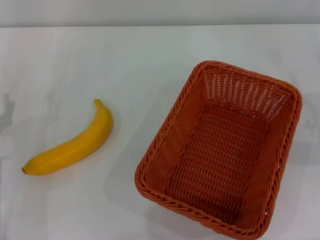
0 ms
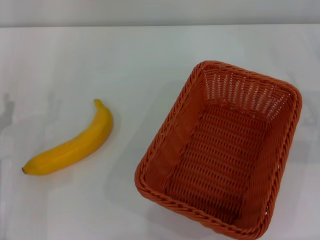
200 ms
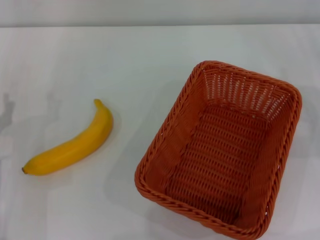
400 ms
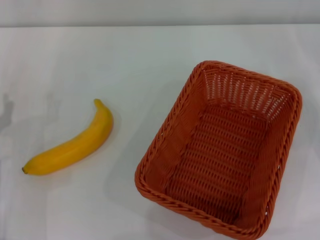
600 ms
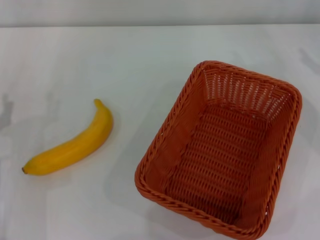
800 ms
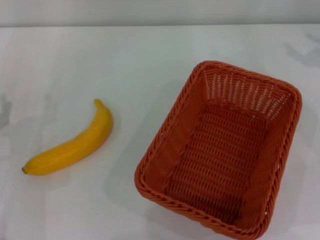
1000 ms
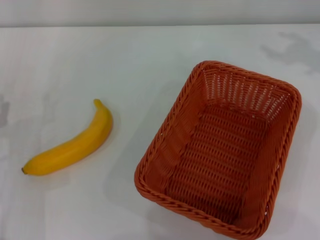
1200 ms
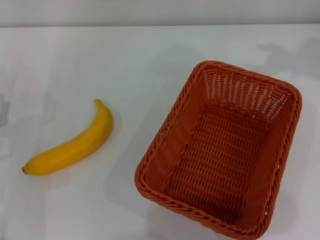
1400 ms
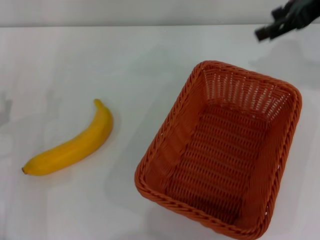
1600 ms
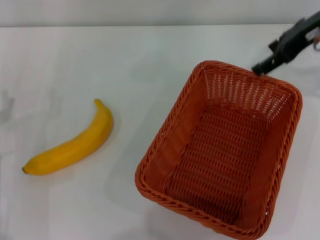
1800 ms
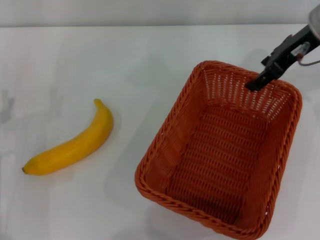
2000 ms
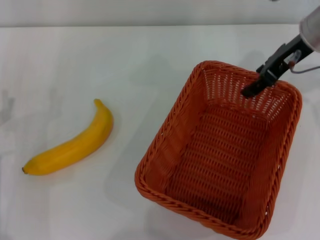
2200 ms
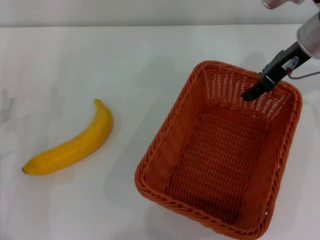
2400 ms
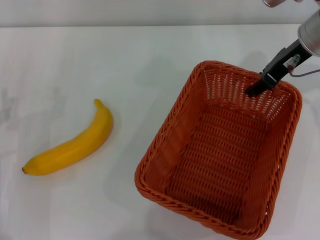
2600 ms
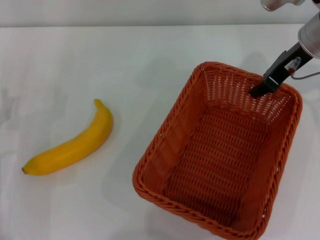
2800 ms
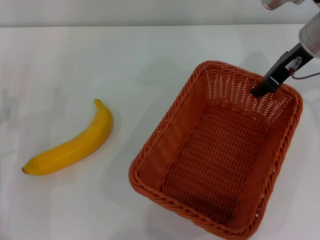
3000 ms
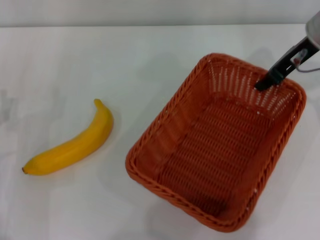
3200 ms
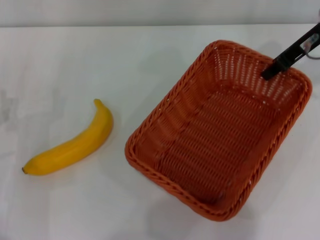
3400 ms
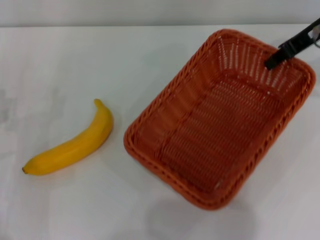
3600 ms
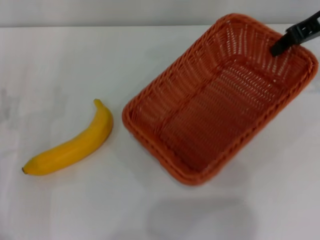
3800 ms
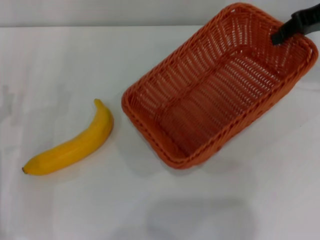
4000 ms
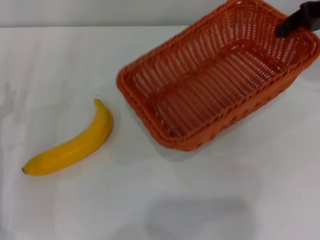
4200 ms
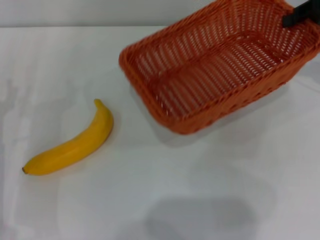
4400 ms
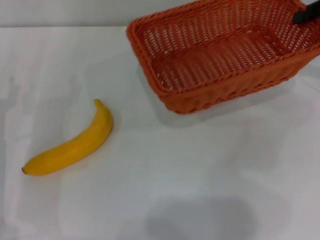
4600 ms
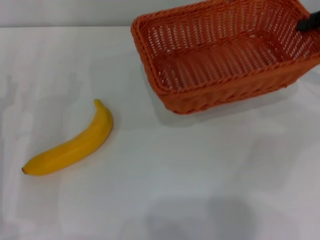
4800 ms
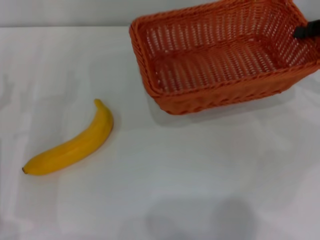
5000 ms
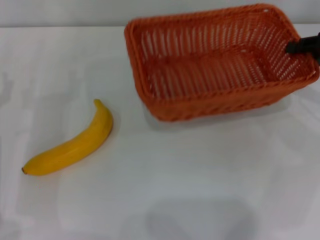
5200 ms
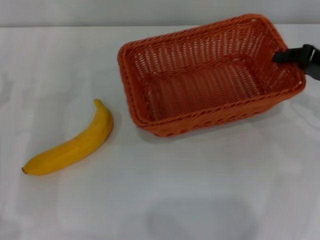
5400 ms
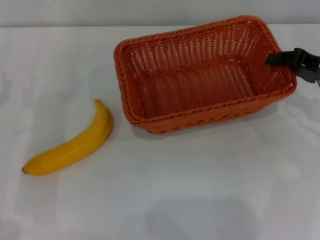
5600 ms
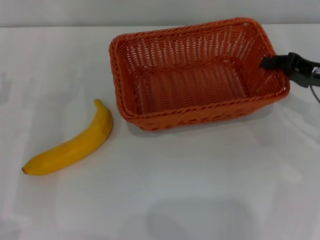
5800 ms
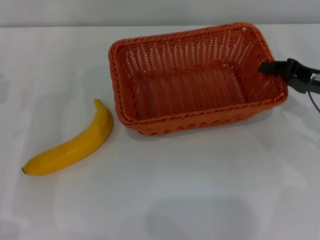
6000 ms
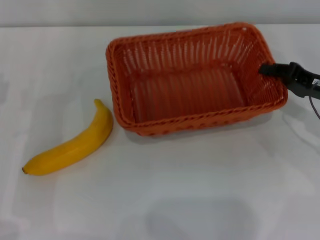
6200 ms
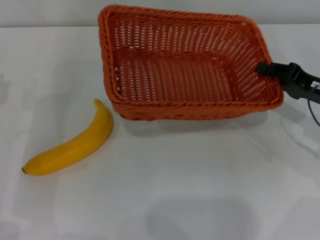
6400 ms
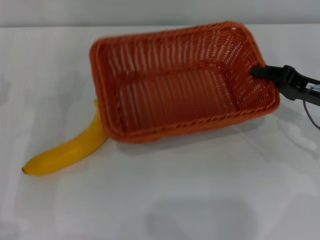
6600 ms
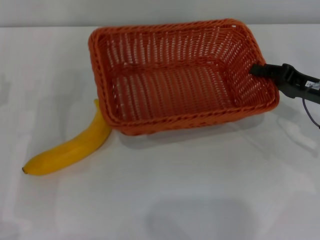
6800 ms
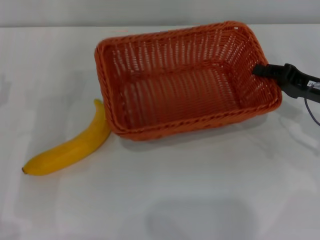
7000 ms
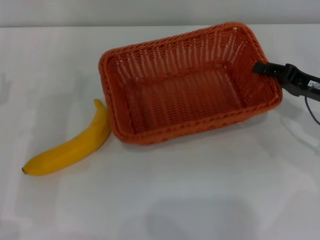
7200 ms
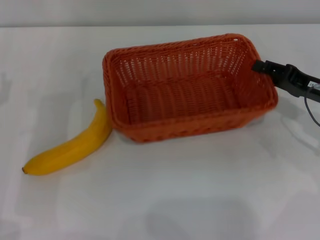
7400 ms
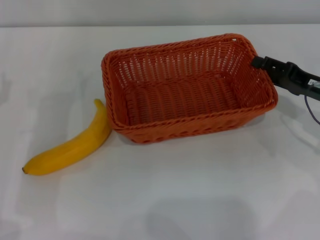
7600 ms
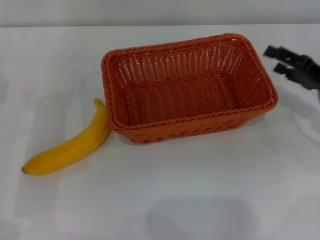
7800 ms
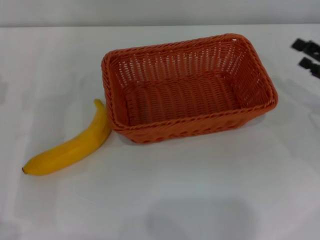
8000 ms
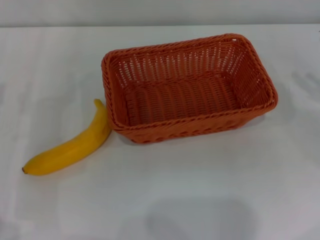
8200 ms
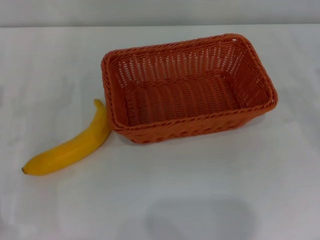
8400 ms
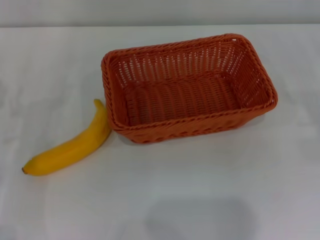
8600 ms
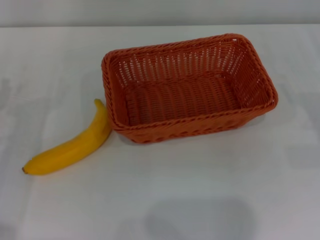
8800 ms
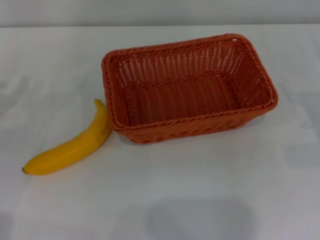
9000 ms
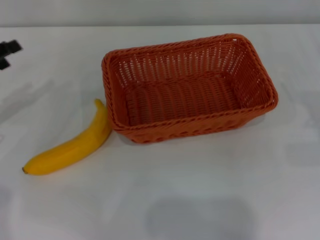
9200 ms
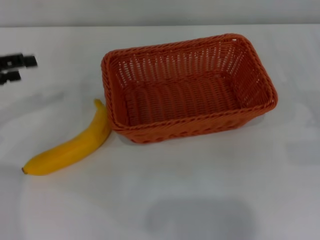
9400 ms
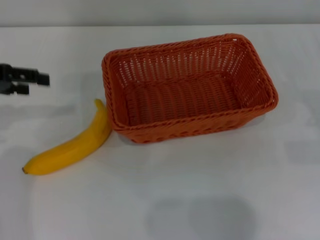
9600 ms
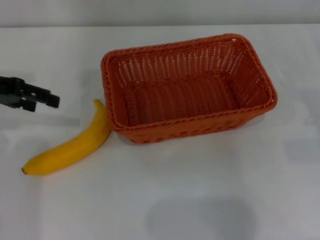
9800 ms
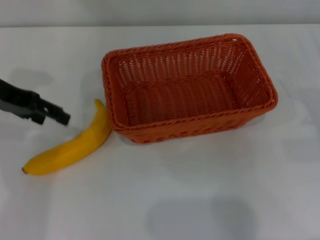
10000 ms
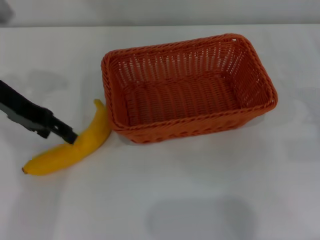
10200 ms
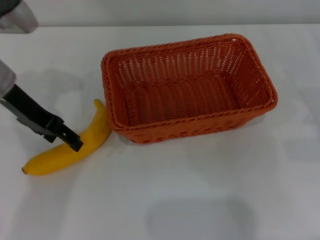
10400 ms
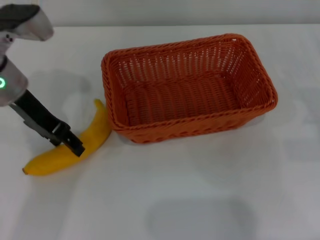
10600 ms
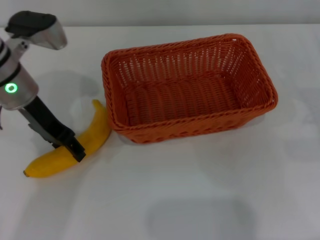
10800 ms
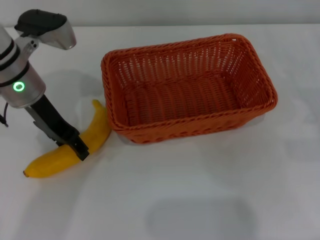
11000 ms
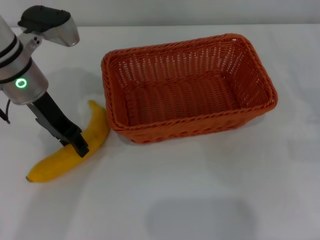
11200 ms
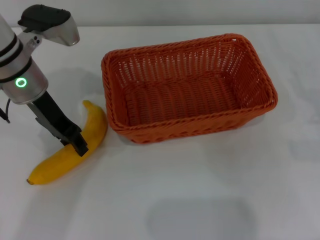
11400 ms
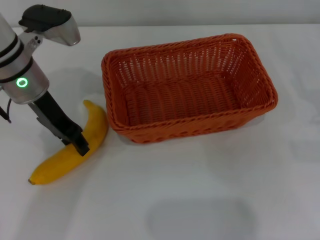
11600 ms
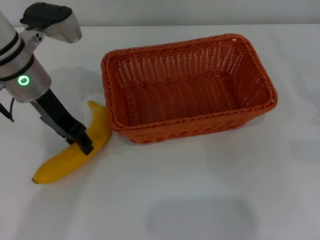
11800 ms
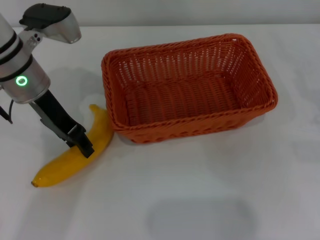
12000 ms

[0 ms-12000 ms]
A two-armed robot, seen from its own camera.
Step, 0 ms to 3600 ms: Pick up the light basket with the right gripper.
Step, 3800 ms to 7600 ms: Place the light basket in the center of view with the right gripper.
0 ms to 1600 ms: The right gripper moves upward, forward and to the left, approximately 30 cm.
1600 ms to 3000 ms: The right gripper goes approximately 10 cm downward and to the left, and closes up.
3000 ms to 4400 ms: The right gripper is displaced to the right by some 10 cm.
4400 ms to 6000 ms: The right gripper moves downward and backward, approximately 15 cm.
6000 ms to 7600 ms: The right gripper opens its fingers.
7600 ms to 9000 ms: The right gripper moves to the right and backward, some 10 cm, and opens its fingers.
9000 ms to 10400 ms: The left gripper goes roughly 20 cm to the right, upward and forward.
10400 ms to 12000 ms: The left gripper closes.

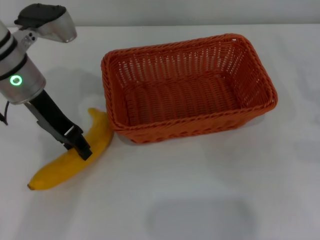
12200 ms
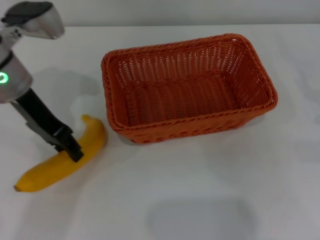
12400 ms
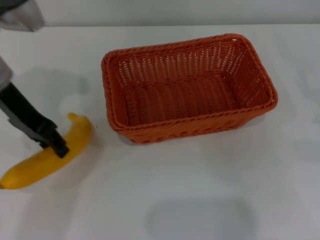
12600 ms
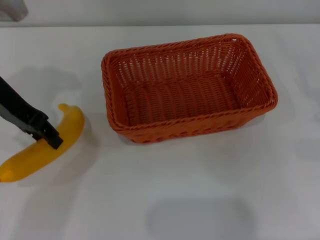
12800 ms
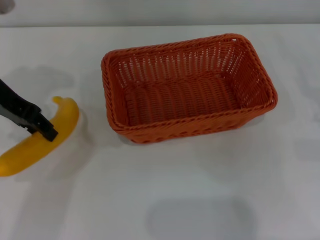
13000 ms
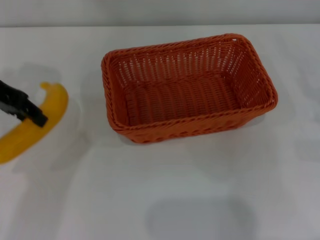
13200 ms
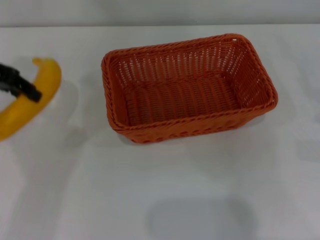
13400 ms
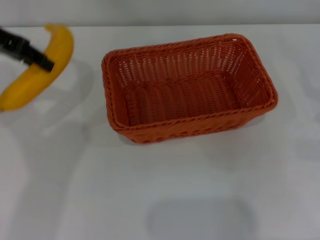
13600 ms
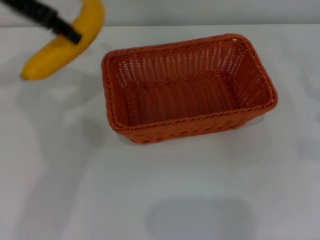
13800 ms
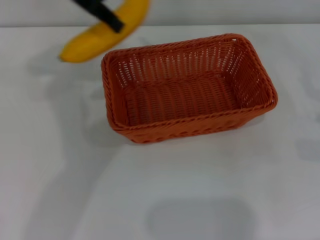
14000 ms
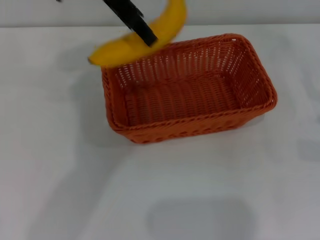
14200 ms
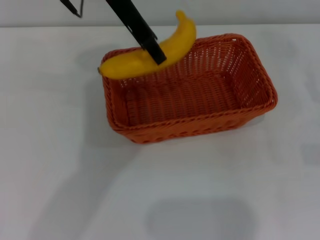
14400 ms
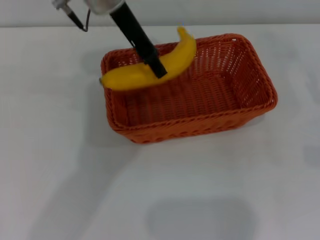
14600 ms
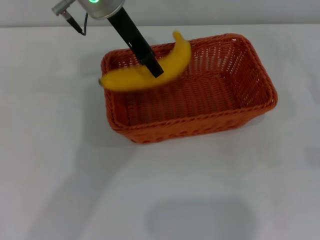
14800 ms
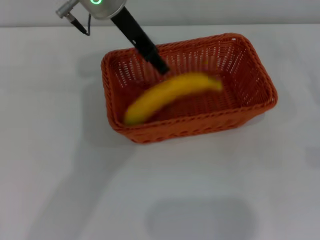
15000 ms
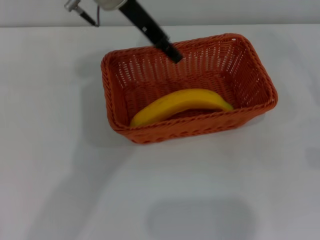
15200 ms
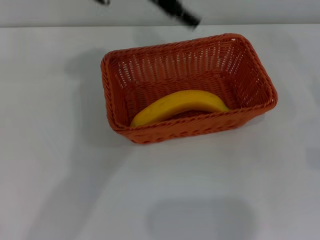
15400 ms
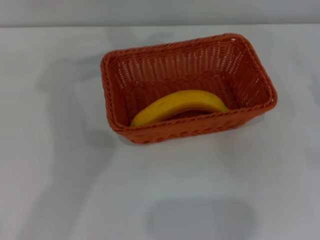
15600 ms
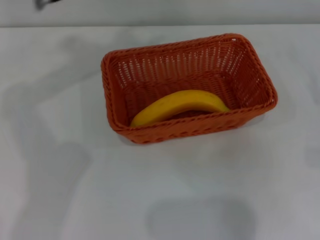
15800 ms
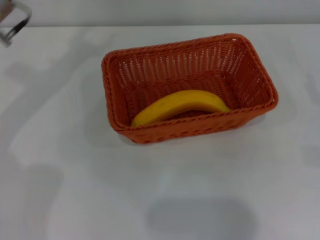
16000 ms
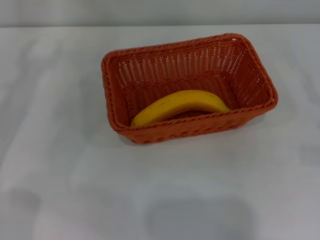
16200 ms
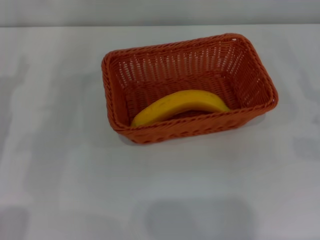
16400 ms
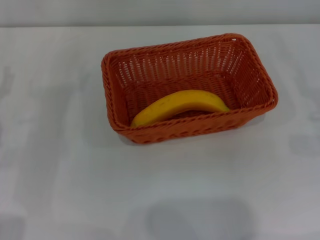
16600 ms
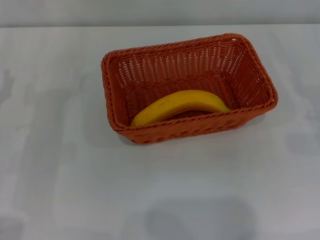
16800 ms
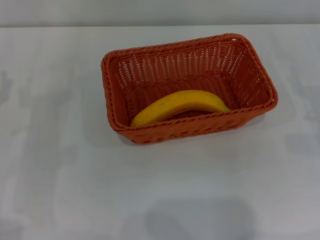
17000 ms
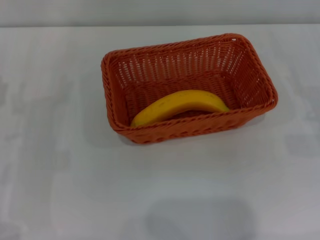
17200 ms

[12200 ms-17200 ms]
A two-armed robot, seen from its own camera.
Step, 13200 ms to 15200 ms: Place the banana into the light basket with the left gripper.
12200 ms to 13800 ms: The left gripper heads upward, covering some 15 cm.
13800 ms to 15600 ms: The left gripper shifts some 10 cm to the right, and opens its fingers.
